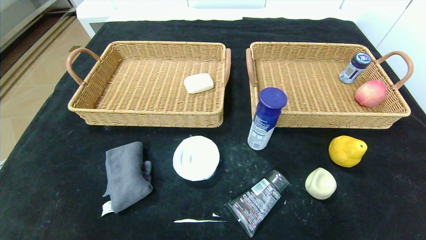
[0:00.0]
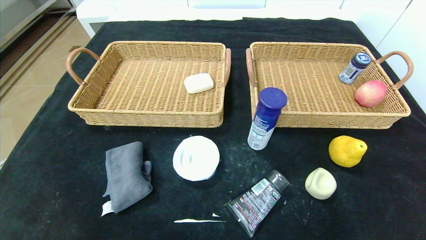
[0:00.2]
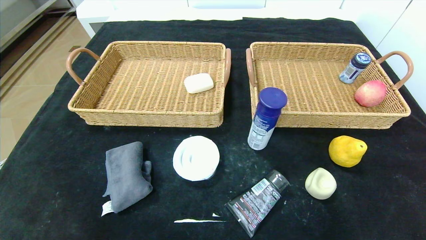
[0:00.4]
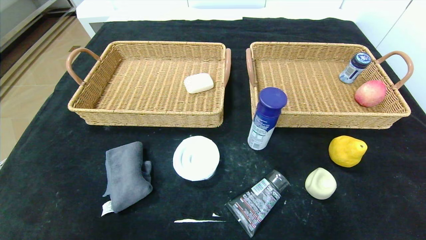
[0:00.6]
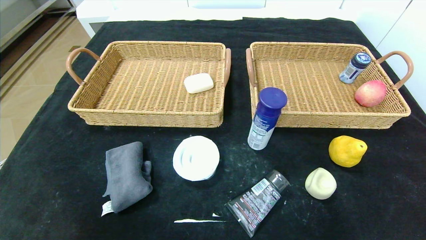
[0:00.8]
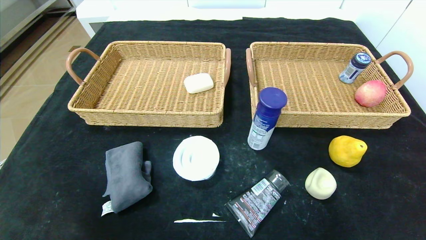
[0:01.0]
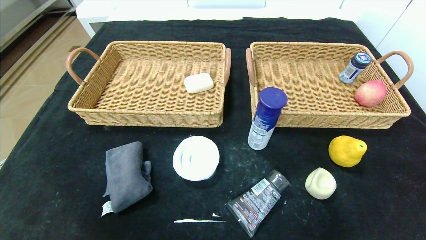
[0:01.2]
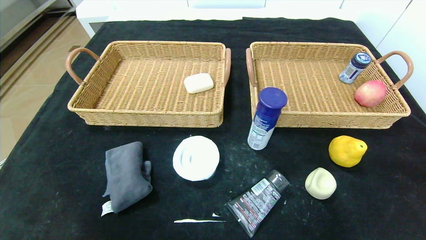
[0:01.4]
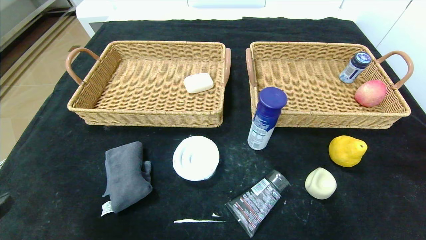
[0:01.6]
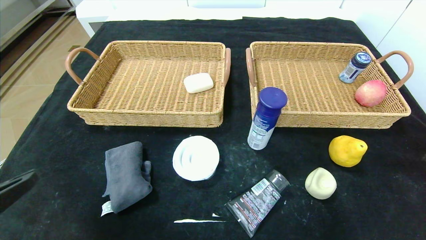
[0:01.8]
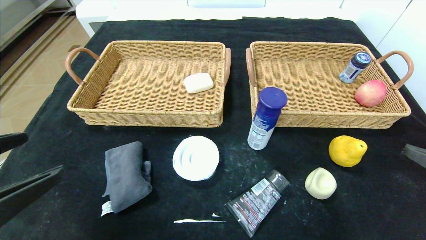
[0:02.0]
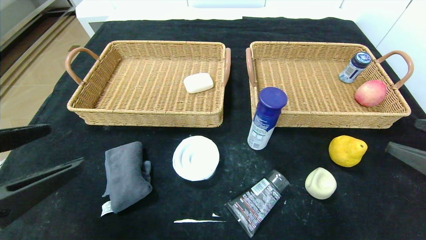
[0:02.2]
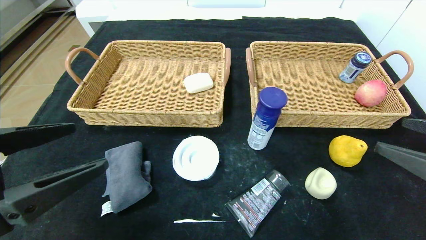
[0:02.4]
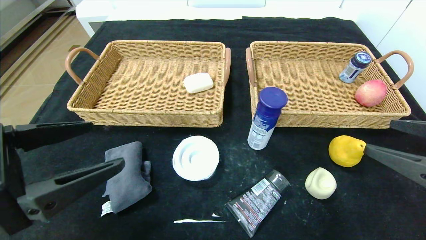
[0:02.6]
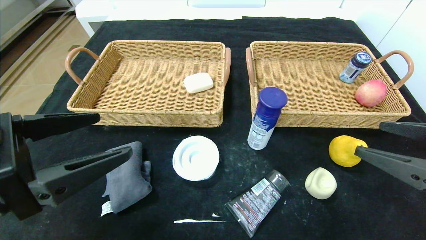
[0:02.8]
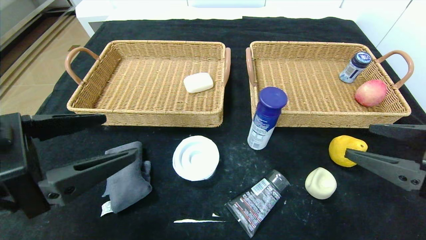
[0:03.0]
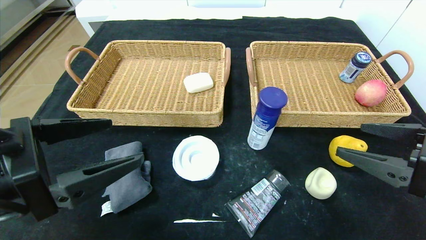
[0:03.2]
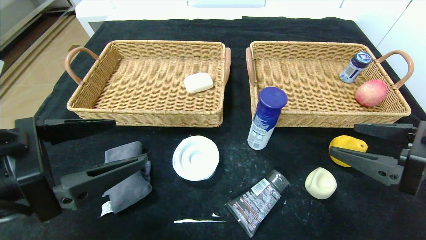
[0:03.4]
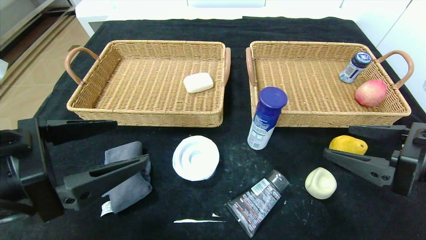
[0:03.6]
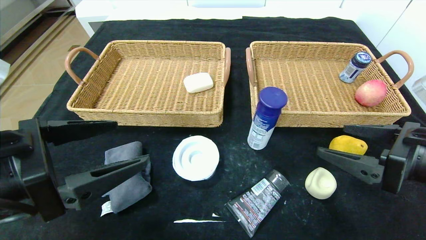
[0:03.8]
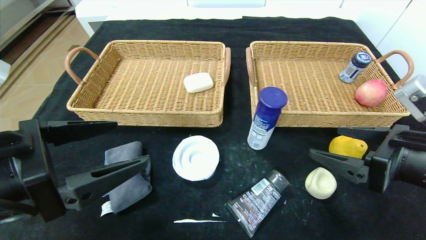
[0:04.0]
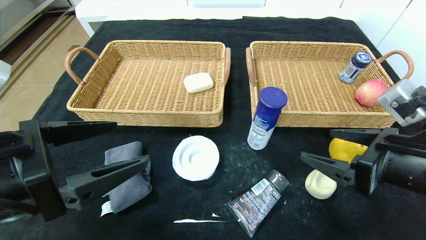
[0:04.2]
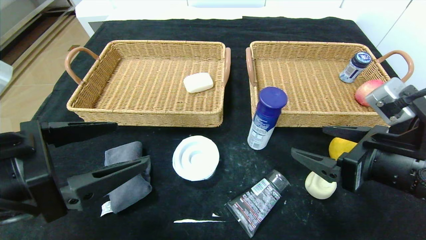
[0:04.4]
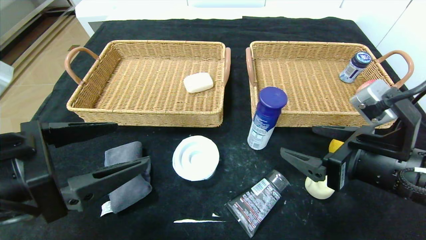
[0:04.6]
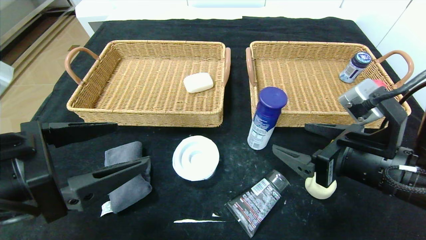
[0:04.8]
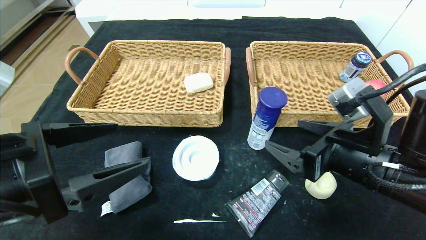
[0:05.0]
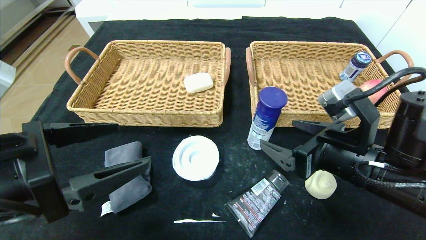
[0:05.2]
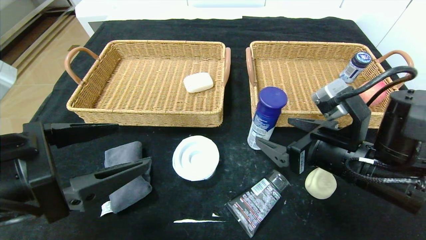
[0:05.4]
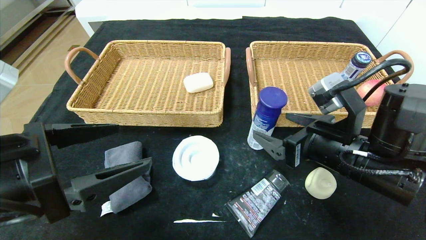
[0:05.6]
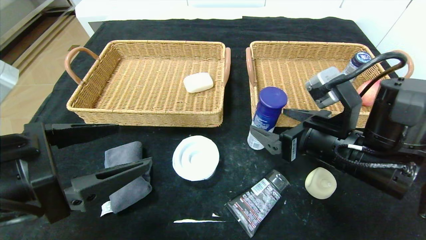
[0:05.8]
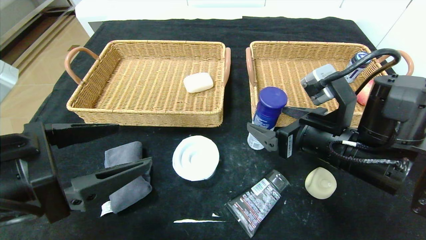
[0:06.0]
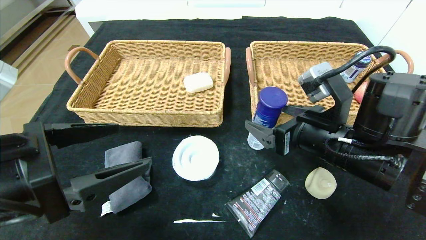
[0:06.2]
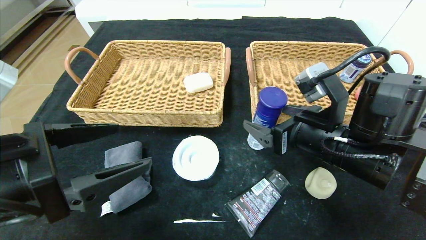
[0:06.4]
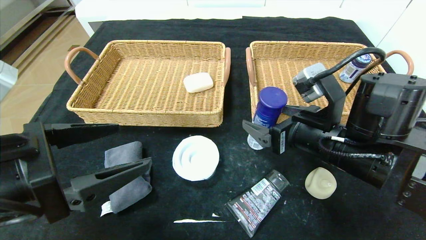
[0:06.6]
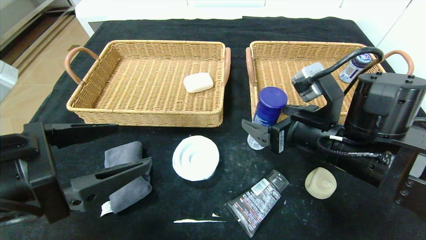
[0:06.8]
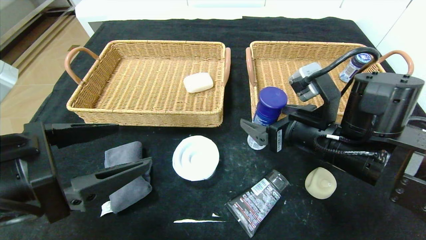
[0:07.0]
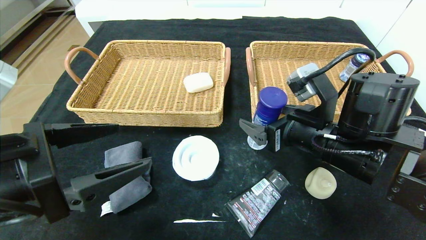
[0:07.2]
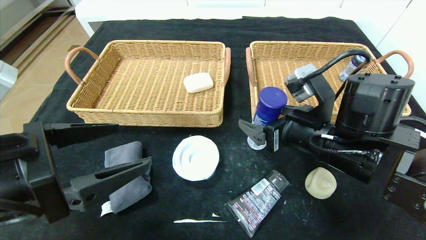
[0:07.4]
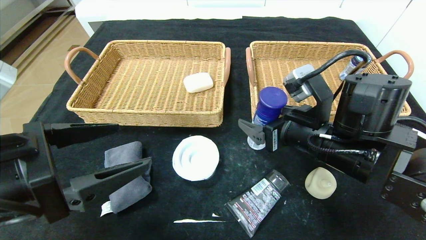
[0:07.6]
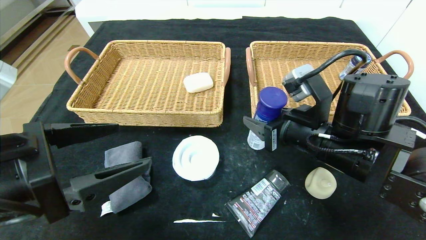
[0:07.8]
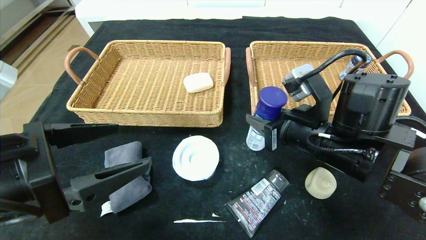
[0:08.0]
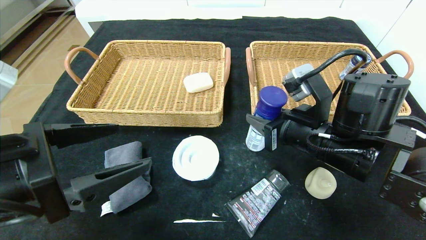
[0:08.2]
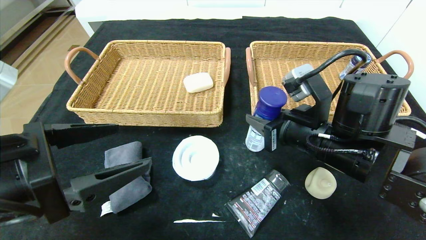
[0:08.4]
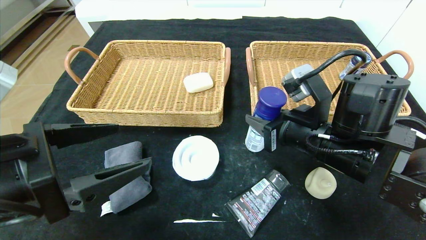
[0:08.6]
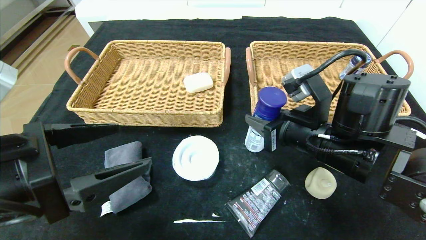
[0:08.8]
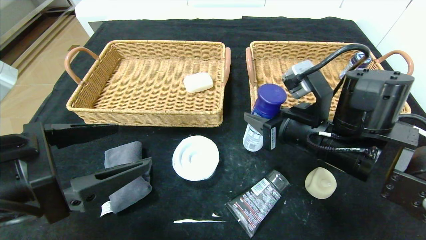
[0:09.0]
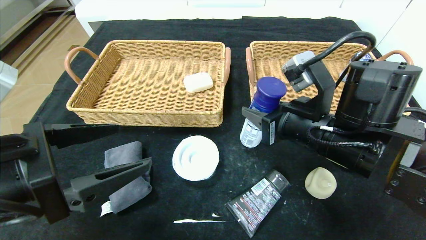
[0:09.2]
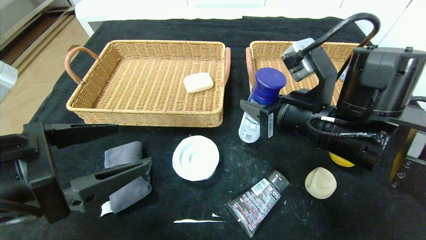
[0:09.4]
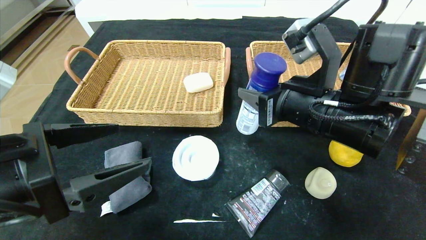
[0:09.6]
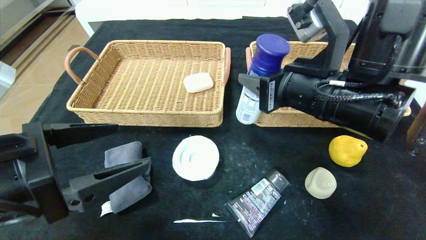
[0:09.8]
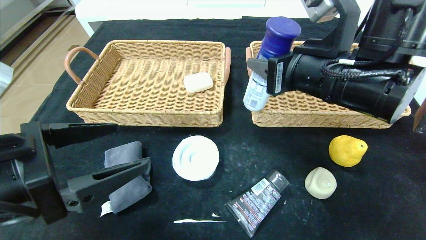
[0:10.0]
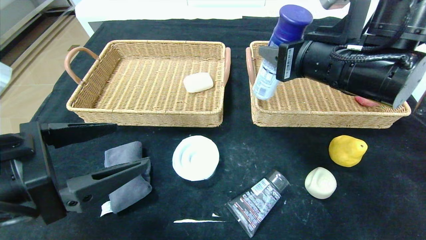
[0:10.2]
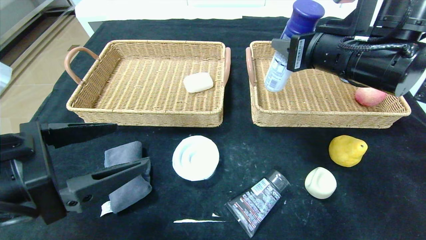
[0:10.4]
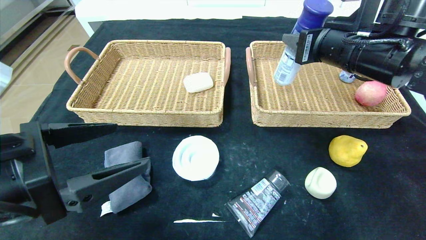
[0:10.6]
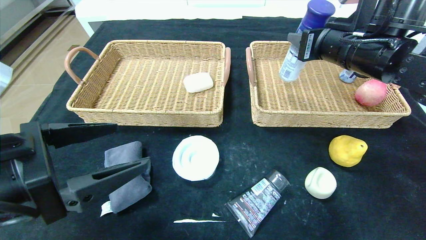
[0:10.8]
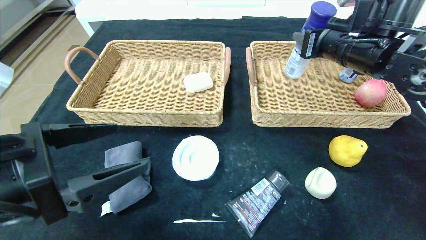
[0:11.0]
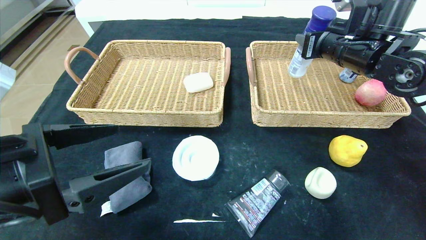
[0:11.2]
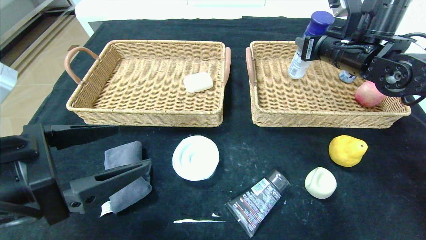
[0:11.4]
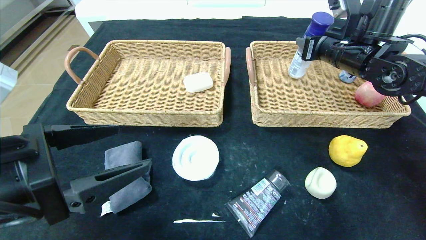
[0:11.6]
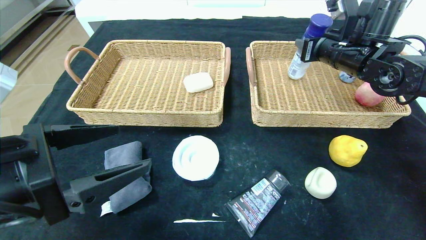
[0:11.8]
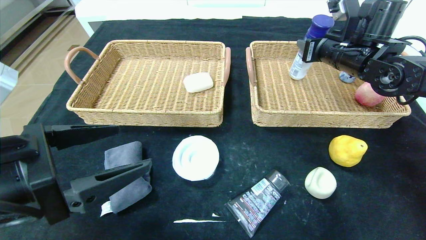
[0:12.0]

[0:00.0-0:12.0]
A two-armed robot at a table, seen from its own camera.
0:00.0 to 0:01.6: The left gripper is displaced upward by roughly 20 cm.
0:01.6 to 0:03.0: The right gripper moves forward and to the left, some 10 cm; the left gripper moves forward and to the right, roughly 10 cm.
0:03.0 to 0:04.4: The right gripper heads to the left, covering approximately 5 cm.
0:04.4 to 0:06.0: The right gripper goes some 10 cm to the left and forward.
0:06.0 to 0:07.6: There are only small adjustments of the grippers.
0:07.6 to 0:09.0: The right gripper closes.
0:09.0 to 0:10.4: The right gripper shifts approximately 10 cm upward.
0:10.4 to 0:12.0: The right gripper travels forward and to the right by about 15 cm.

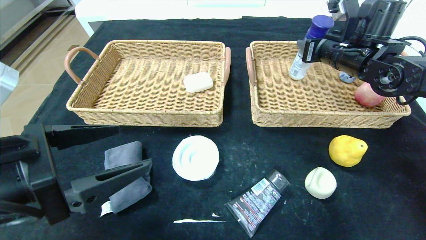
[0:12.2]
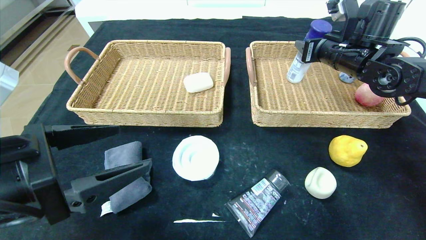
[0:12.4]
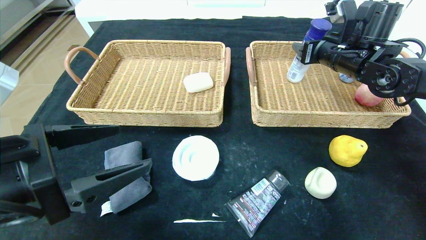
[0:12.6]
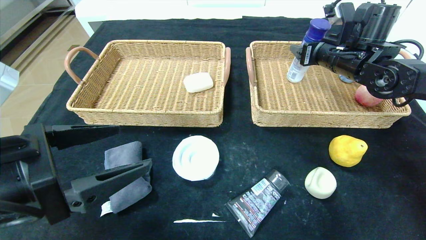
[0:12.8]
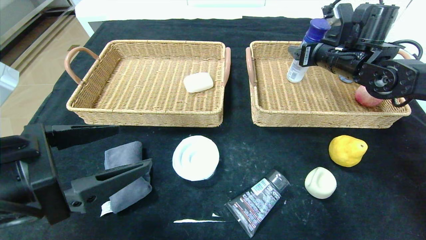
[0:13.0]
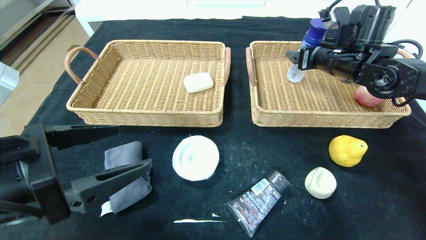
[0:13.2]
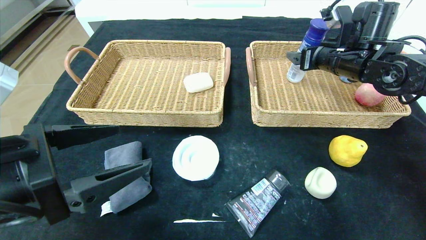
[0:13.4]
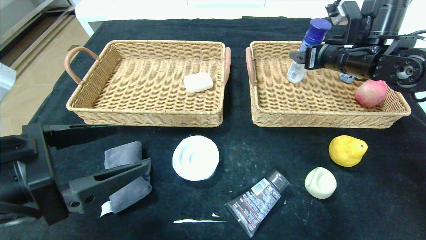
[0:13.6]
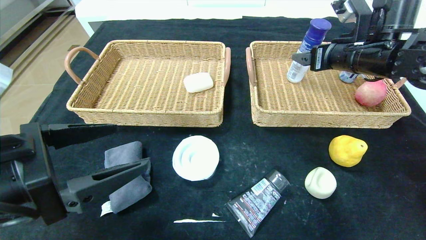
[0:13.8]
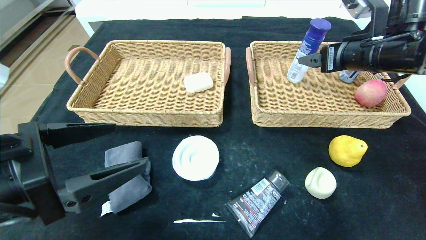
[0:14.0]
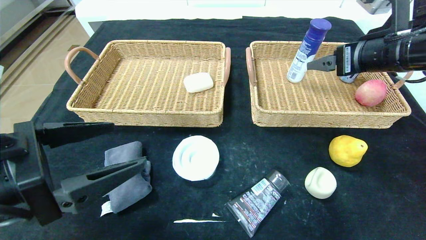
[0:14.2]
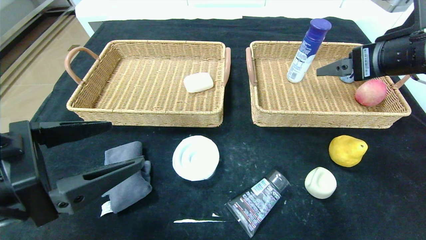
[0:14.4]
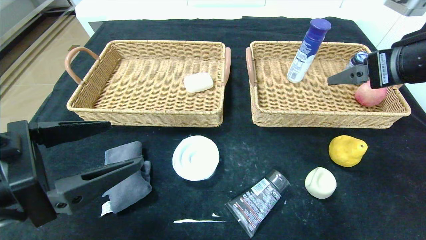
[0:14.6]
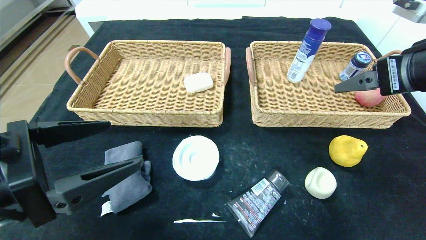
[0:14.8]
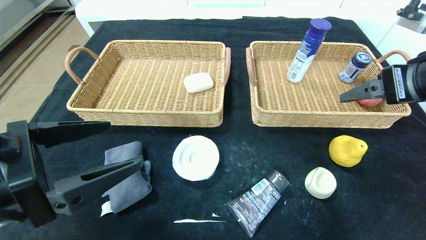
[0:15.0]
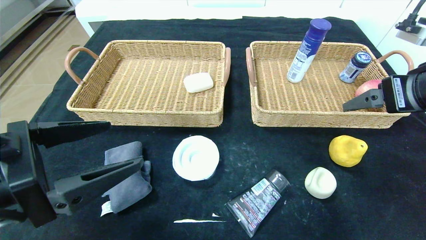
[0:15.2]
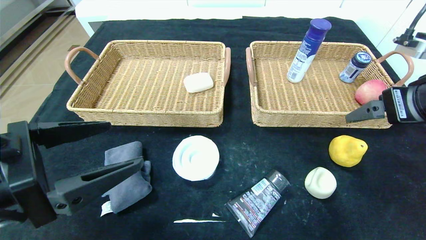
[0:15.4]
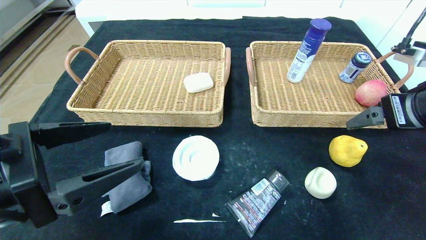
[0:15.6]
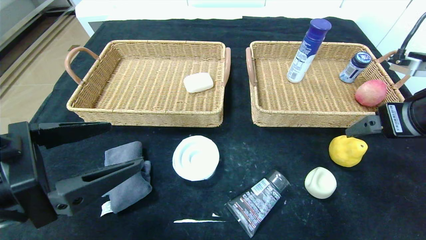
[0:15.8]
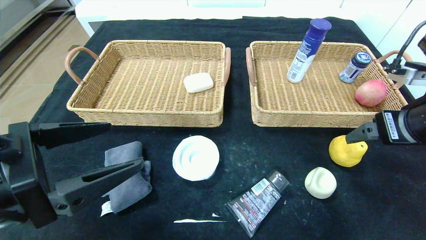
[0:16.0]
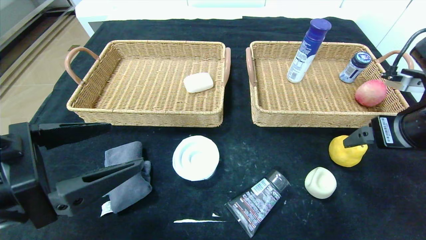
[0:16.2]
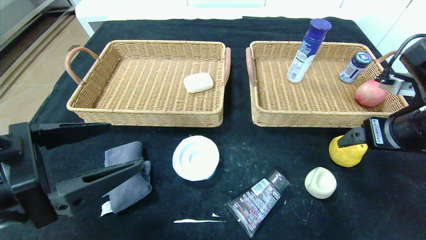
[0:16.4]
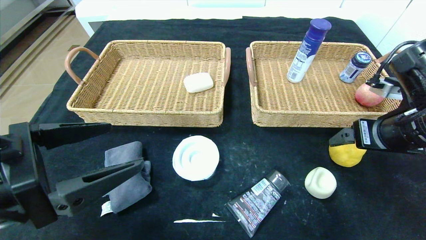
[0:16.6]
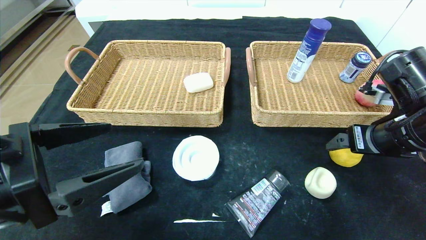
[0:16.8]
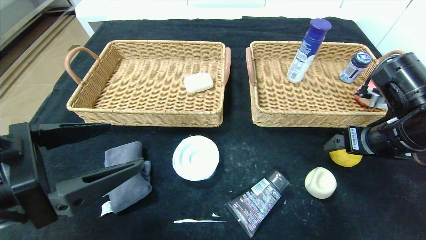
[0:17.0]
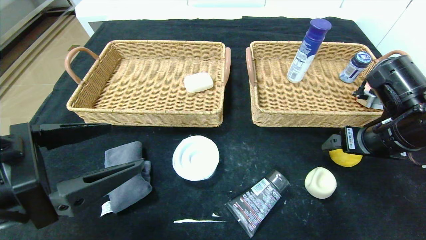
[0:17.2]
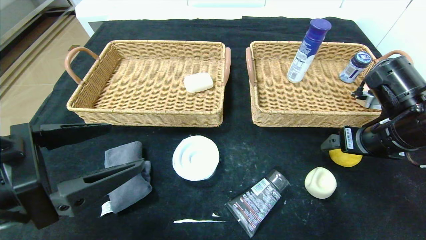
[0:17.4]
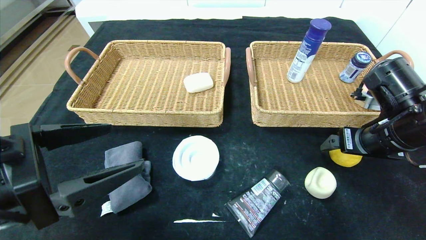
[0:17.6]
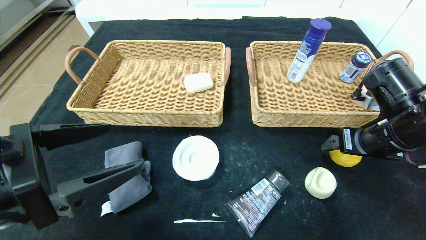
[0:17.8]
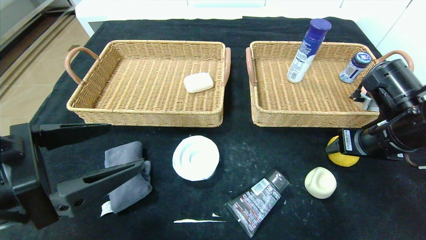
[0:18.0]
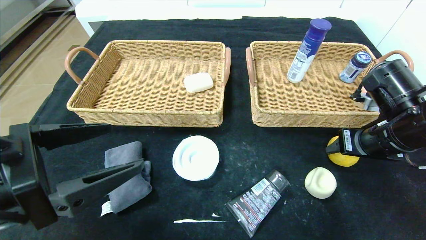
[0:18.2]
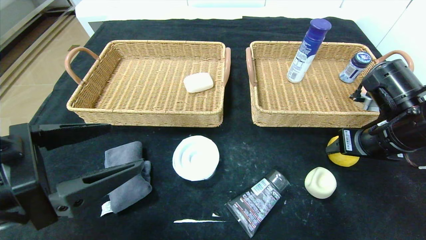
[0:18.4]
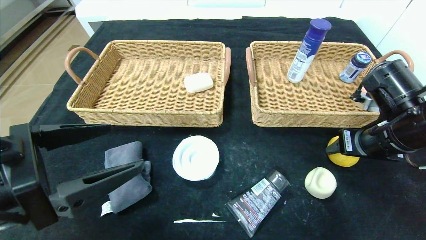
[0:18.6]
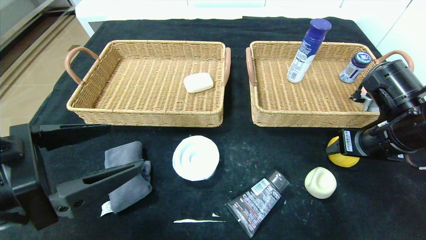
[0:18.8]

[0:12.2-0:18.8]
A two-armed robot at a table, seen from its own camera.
Step, 0:12.2 to 0:16.2: Pick up the yogurt and put it in the right basket.
0:12.2 to 0:13.8: The right gripper opens up.
0:13.8 to 0:15.4: The right gripper shifts approximately 15 cm backward.
0:15.4 to 0:17.2: The right gripper goes about 10 cm downward.
0:17.2 to 0:18.8: The right gripper closes.
